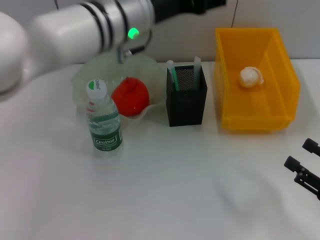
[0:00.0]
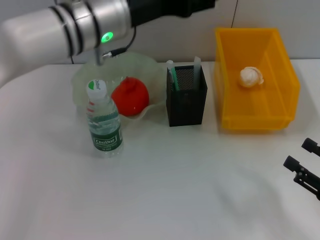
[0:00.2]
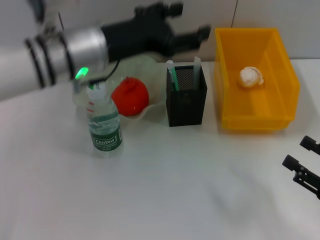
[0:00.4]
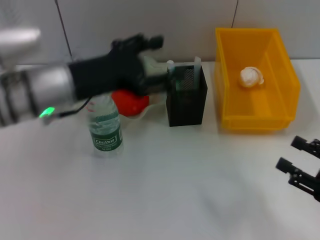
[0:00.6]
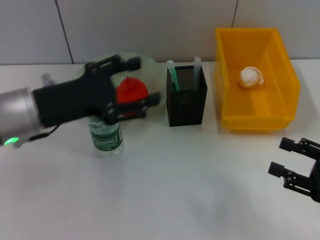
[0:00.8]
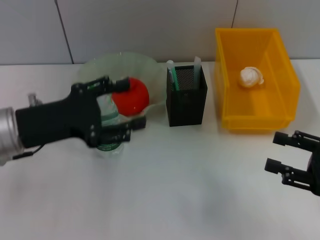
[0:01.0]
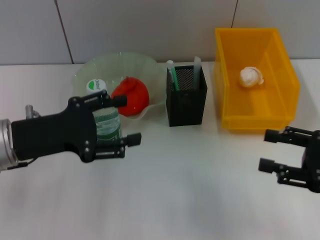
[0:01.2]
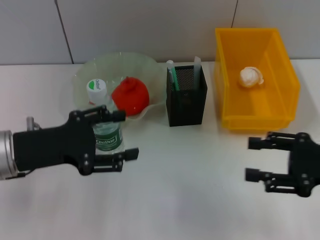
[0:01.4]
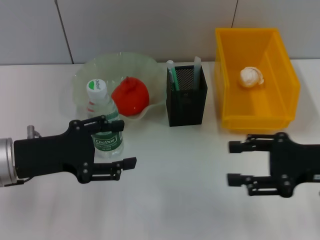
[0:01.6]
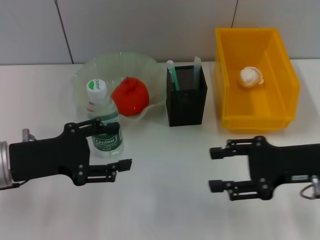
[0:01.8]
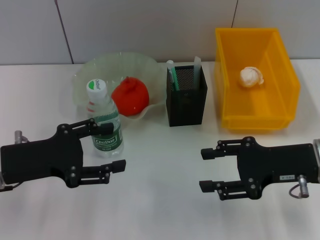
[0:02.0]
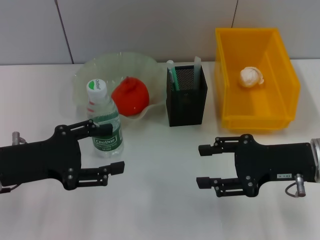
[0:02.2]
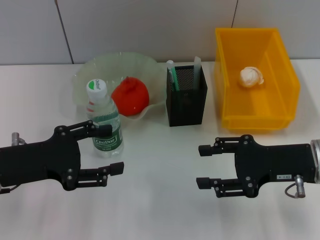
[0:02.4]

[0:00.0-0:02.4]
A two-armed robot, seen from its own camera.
0.0 to 1.2 s: The right gripper goes roughly 10 cm upward and forward; the left gripper is displaced to the left, backward and downward by roughly 20 cm.
1.2 to 2.4 s: The right gripper heads to the left, covering about 10 cm.

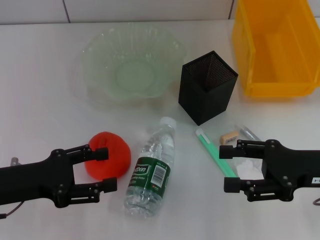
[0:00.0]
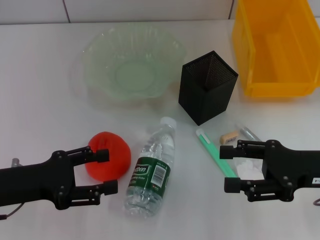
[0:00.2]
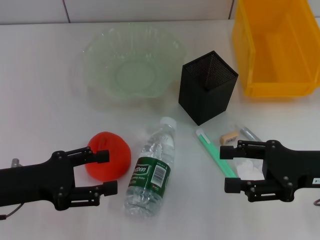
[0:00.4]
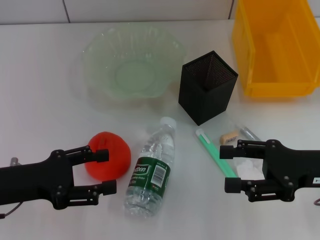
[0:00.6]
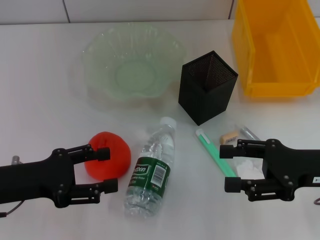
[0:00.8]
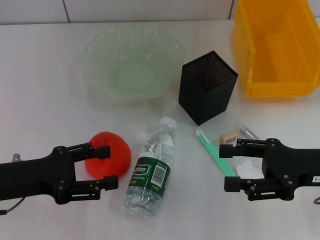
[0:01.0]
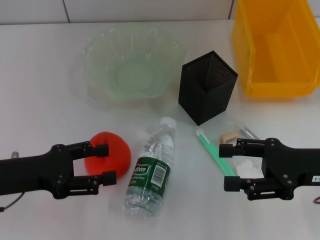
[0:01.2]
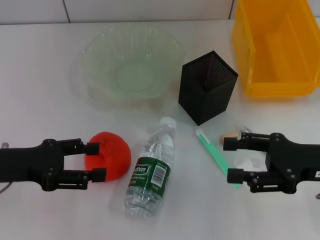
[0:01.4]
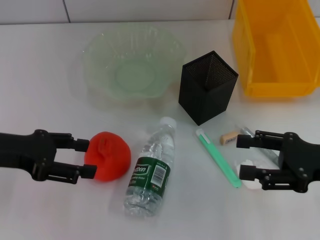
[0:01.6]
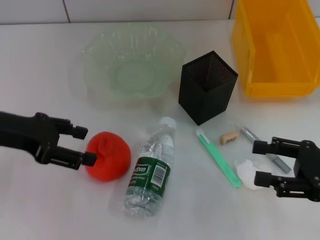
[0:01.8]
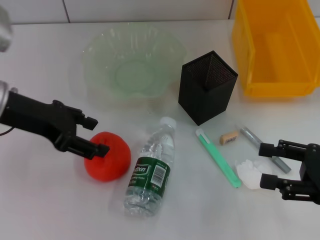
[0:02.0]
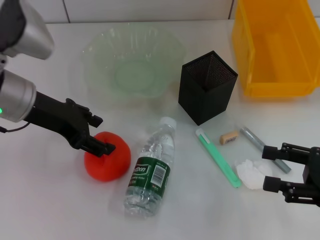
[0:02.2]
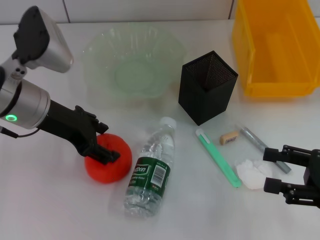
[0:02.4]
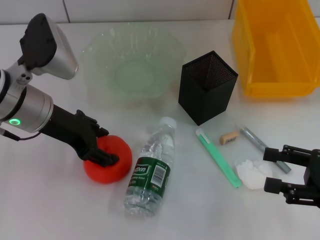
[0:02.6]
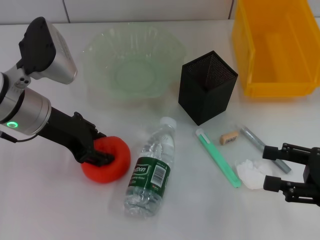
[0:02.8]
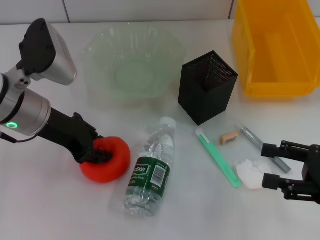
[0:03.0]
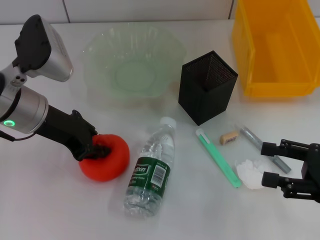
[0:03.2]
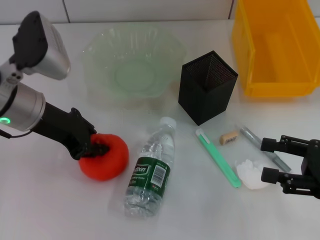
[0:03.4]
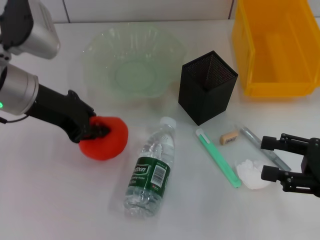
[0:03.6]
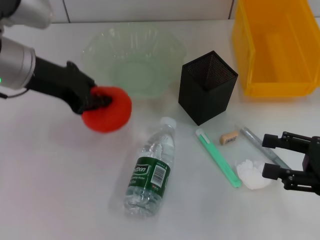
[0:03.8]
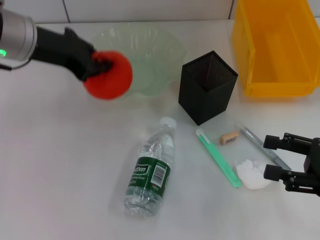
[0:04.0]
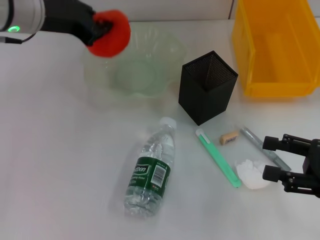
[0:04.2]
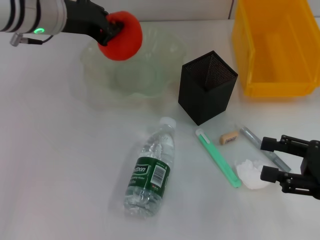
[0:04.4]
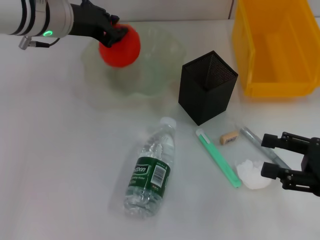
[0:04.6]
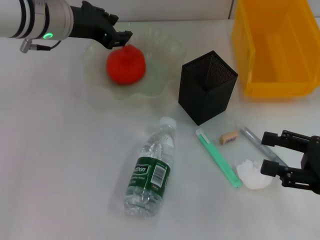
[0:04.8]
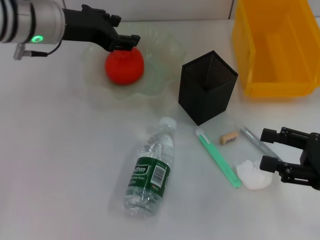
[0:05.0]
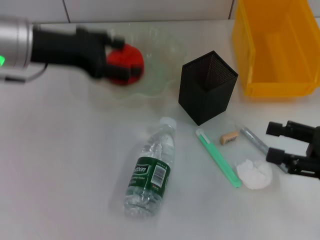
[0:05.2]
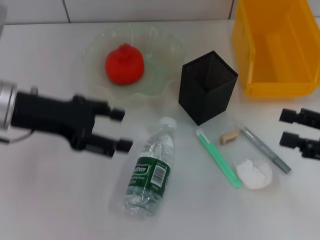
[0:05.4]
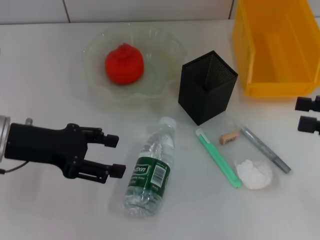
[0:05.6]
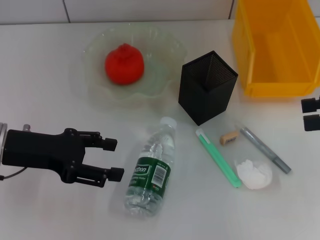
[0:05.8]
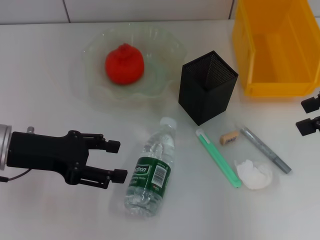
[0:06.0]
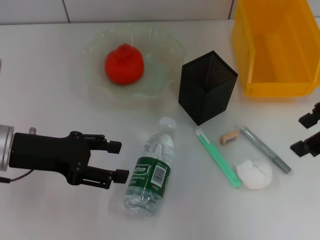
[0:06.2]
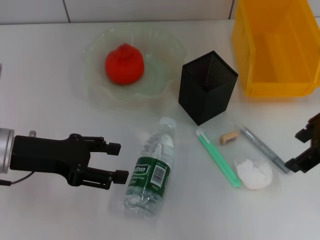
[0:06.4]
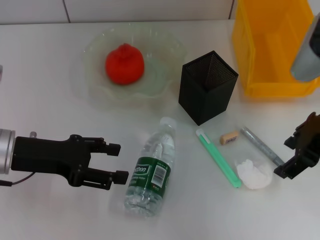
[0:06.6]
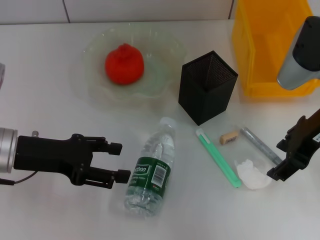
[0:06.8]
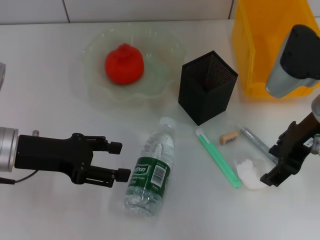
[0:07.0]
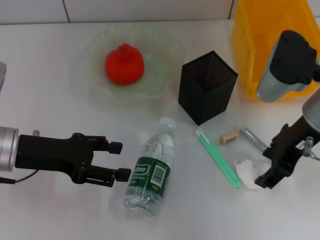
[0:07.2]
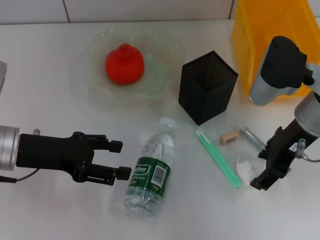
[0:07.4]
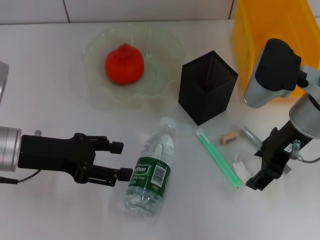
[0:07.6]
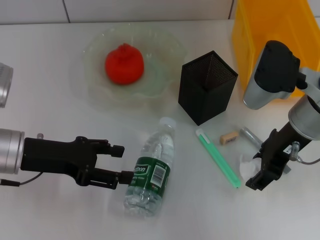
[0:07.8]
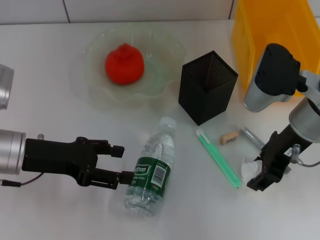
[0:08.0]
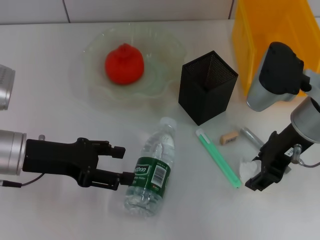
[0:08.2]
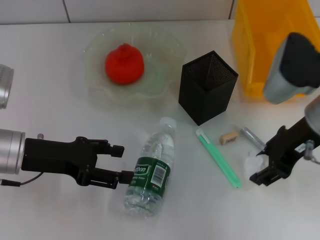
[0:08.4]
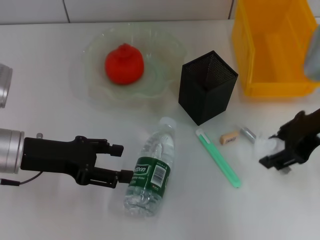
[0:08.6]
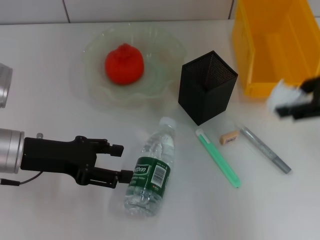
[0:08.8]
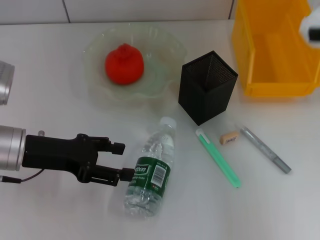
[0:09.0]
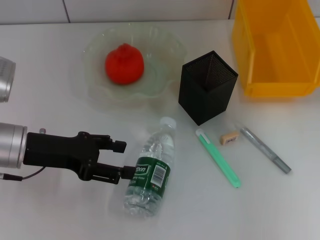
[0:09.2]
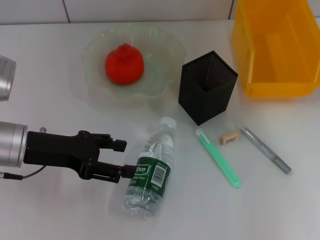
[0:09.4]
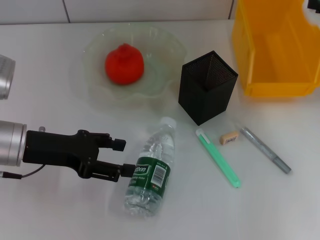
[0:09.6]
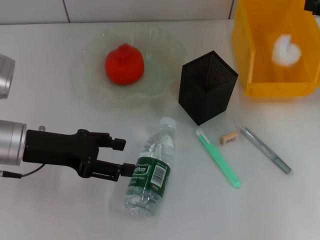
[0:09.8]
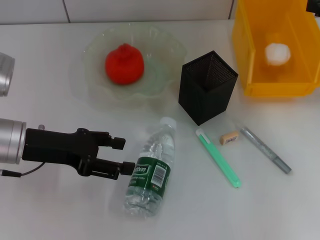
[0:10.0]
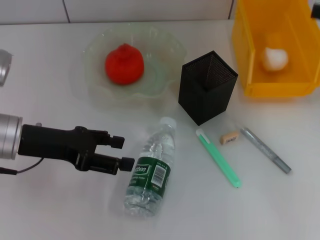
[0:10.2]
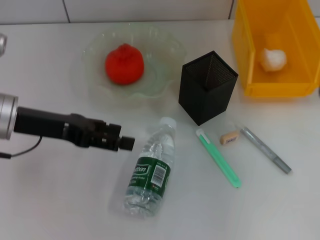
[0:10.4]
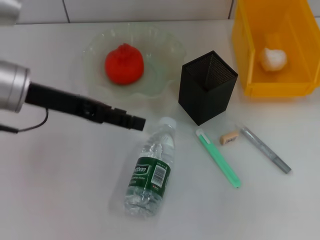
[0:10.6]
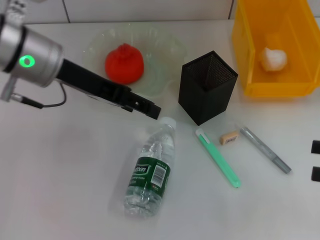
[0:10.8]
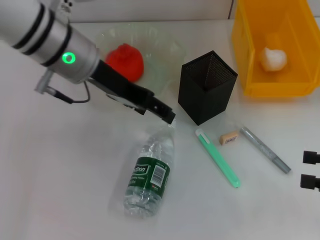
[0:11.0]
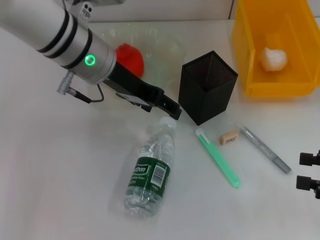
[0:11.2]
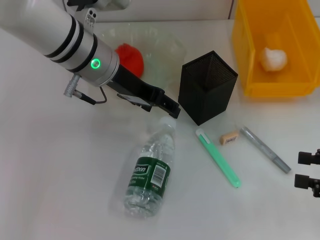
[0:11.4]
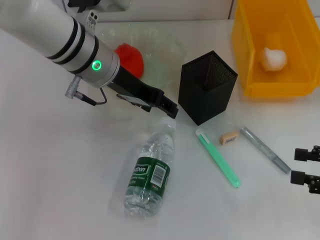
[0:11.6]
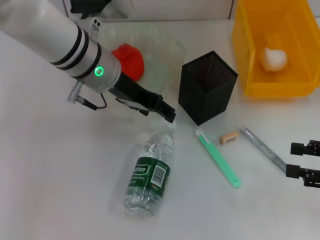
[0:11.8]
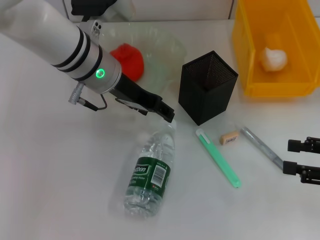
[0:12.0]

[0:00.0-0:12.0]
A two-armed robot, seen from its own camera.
Step, 0.0 to 2.6 s: Grab the orange with the left hand.
Step, 2.8 to 5.0 s: Place the orange into the fruit bowl with the left hand.
Step, 5.2 to 8.2 s: Grab the paper ball with the right hand.
Step, 8.4 to 10.0 s: Place the paper ball into the trash can with the right hand.
0.0 to 1.6 s: The left gripper moves upward, some 5 cm.
1.6 to 3.0 s: The left gripper heads to the right and forward, covering roughly 10 cm.
3.0 to 4.4 s: The left gripper shifts some 10 cm forward and upward, and closes.
4.4 to 6.0 s: The right gripper is displaced upward and forward by some 20 cm, while the left gripper travels backward, downward and to the left by approximately 15 cm, and opens its fingers.
6.0 to 7.6 s: The right gripper moves to the left and downward, roughly 15 cm.
7.6 to 9.0 s: The right gripper shifts about 20 cm to the right and upward.
9.0 to 10.4 s: The right gripper goes roughly 5 cm downward.
10.4 to 12.0 s: The right gripper heads downward, covering some 10 cm, while the left gripper shifts some 15 cm to the right and forward.

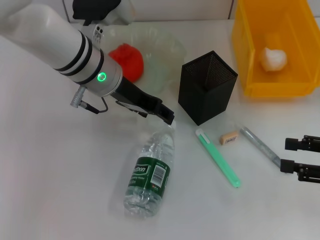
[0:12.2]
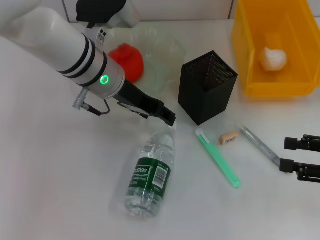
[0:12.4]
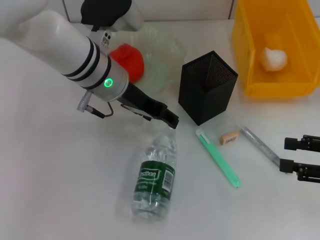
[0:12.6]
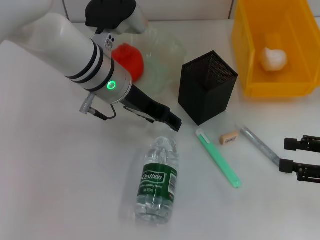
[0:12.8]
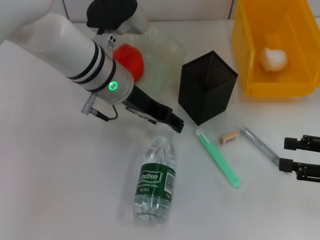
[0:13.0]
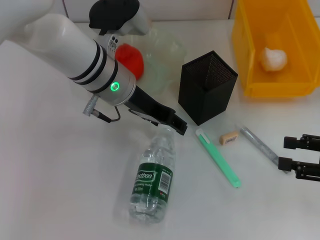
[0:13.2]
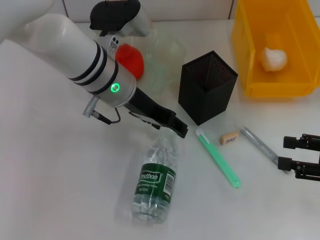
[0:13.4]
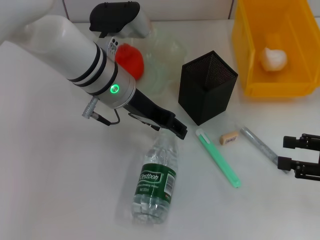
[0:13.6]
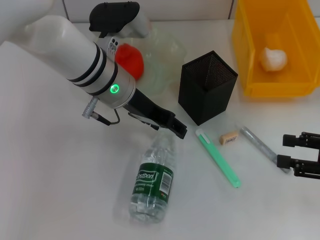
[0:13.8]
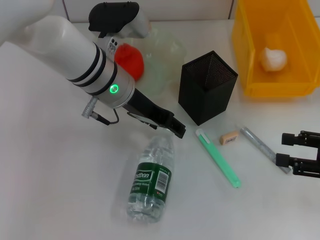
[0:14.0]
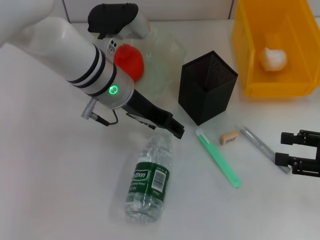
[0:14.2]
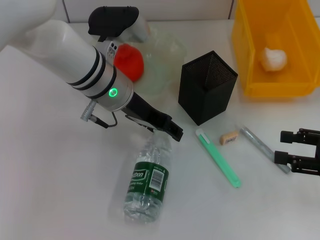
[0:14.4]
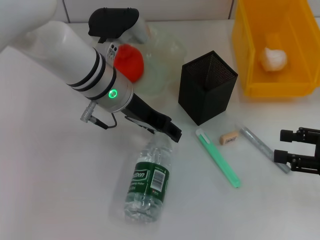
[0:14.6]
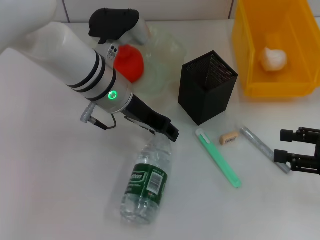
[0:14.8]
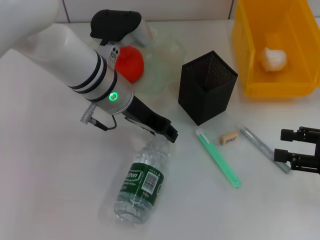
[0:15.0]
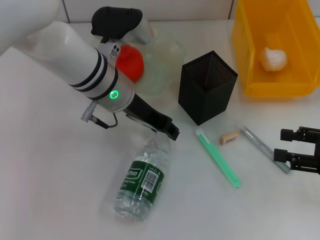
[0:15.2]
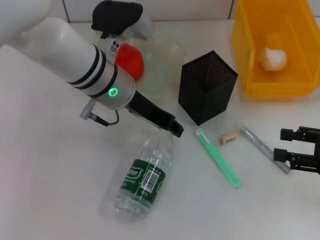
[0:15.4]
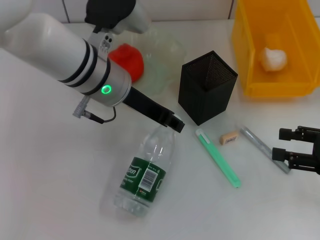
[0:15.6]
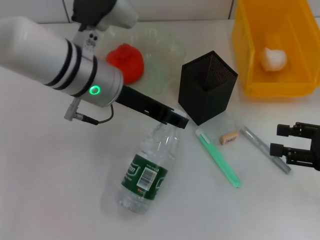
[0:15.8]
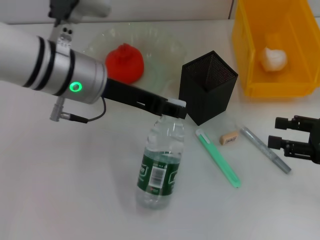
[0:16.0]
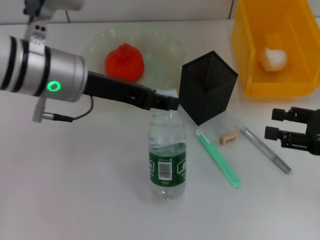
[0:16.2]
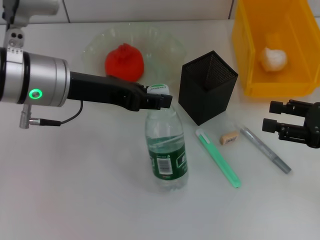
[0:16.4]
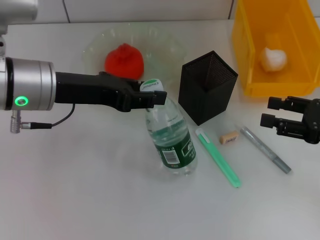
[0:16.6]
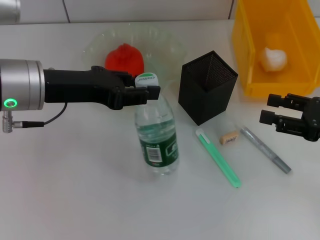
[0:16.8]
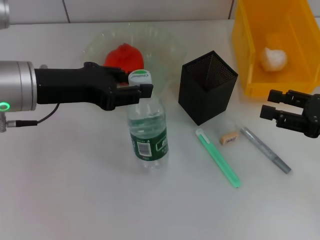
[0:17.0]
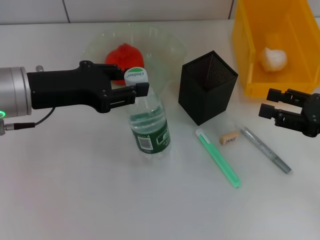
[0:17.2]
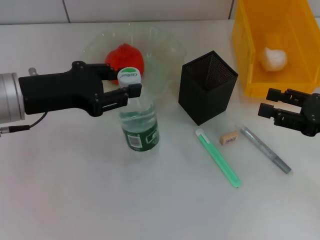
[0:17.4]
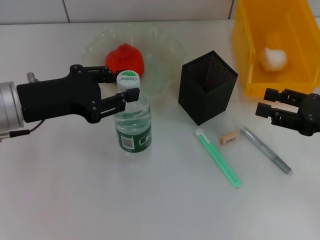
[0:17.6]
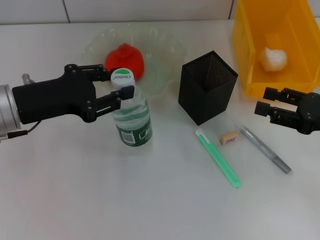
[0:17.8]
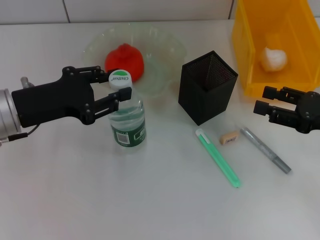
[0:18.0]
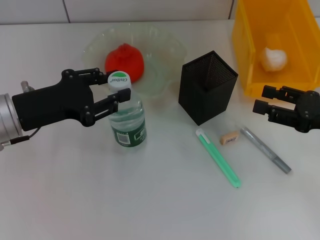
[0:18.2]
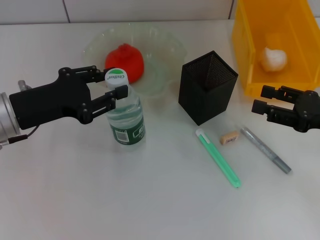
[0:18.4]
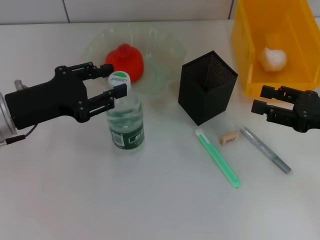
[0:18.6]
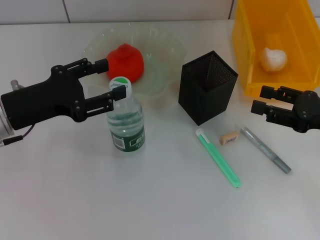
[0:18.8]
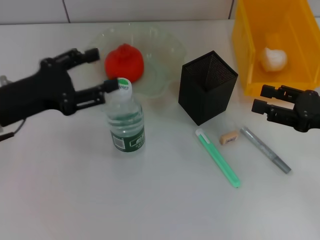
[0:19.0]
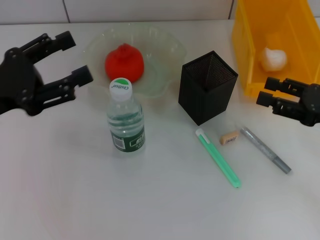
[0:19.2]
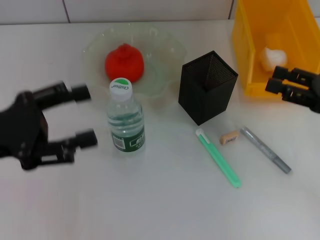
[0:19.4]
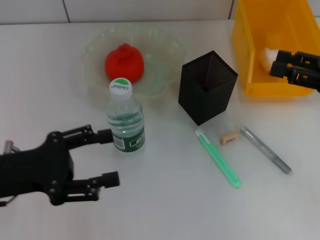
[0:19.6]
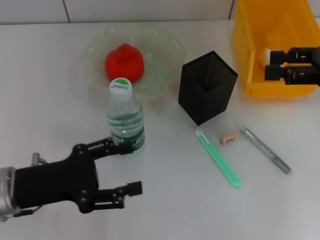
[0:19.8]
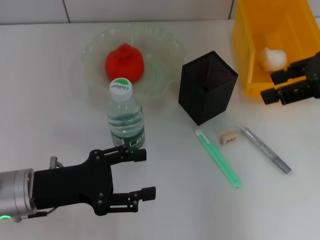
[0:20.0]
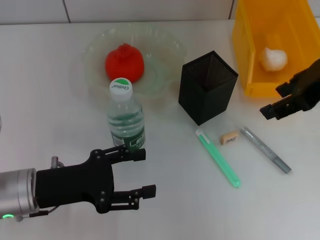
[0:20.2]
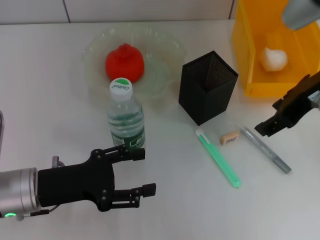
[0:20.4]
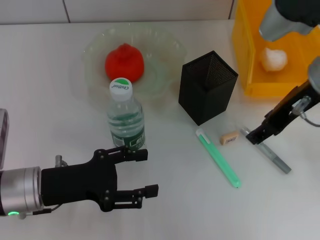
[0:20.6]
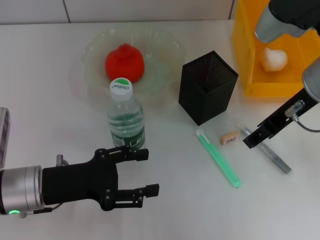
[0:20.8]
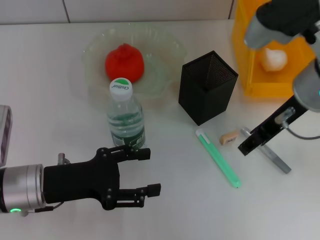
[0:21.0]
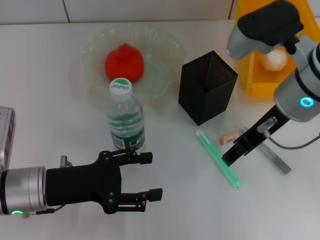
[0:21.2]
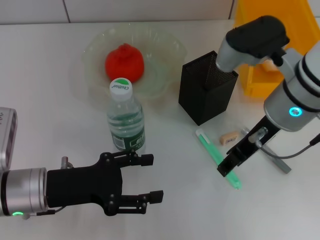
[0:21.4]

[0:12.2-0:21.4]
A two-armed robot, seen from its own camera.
Step, 12.2 to 14.8 s: Grab the water bottle with the left hand.
Step, 15.0 to 18.8 s: Place the water bottle on the table with the left hand.
12.2 to 13.8 s: The grippers move only a little.
13.8 to 15.2 s: The left gripper closes.
15.2 to 16.8 s: The left gripper shifts roughly 15 cm to the left and backward.
16.8 to 18.4 s: The left gripper heads downward, covering approximately 5 cm.
18.4 to 19.8 s: The left gripper travels backward by approximately 5 cm, and opens its fingers, while the right gripper shifts about 10 cm upward.
19.8 to 21.4 s: The right gripper heads to the left, covering some 15 cm.
